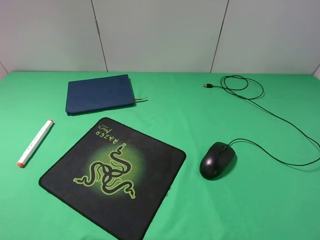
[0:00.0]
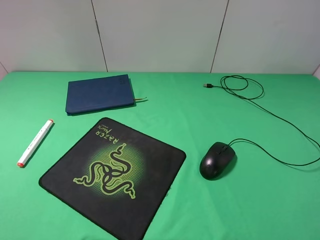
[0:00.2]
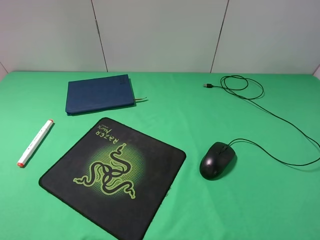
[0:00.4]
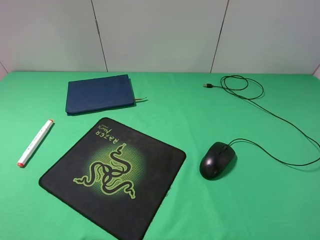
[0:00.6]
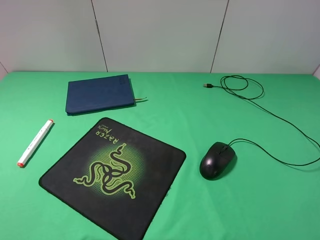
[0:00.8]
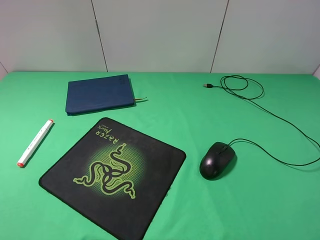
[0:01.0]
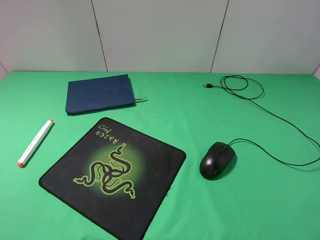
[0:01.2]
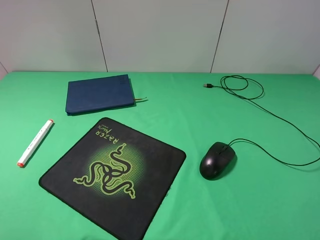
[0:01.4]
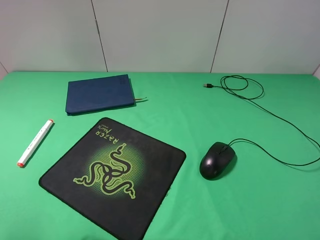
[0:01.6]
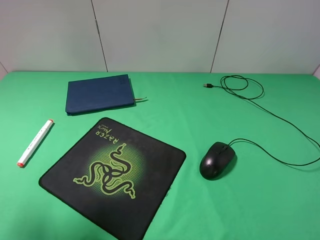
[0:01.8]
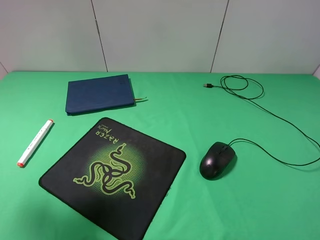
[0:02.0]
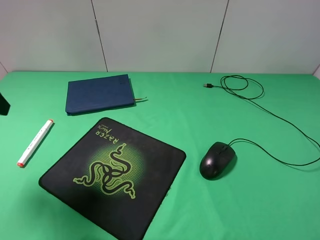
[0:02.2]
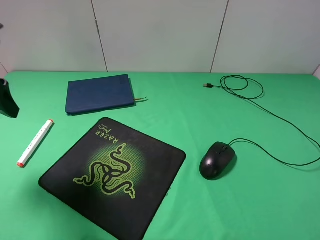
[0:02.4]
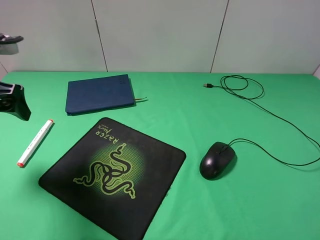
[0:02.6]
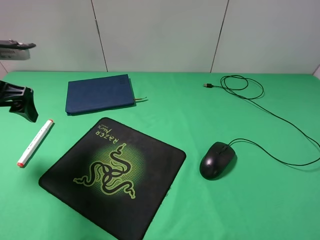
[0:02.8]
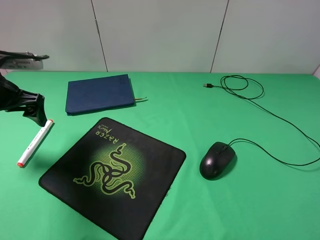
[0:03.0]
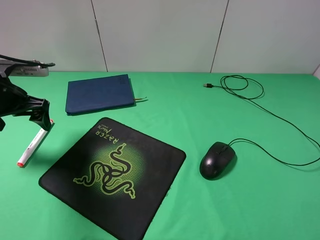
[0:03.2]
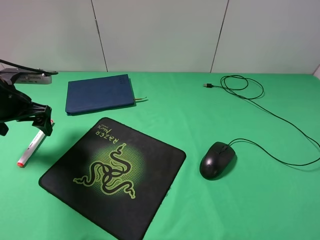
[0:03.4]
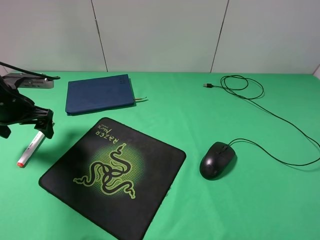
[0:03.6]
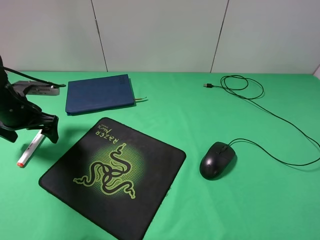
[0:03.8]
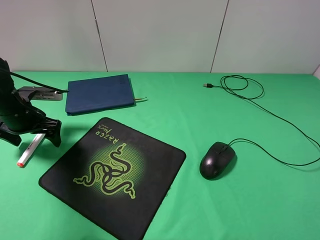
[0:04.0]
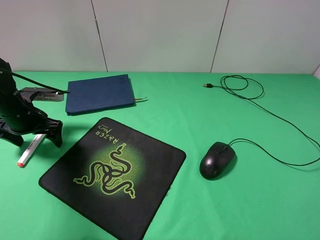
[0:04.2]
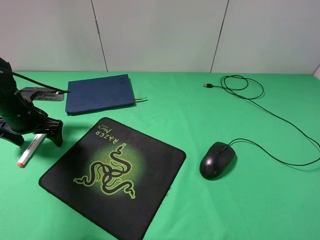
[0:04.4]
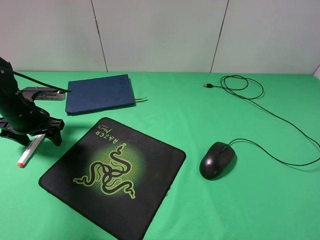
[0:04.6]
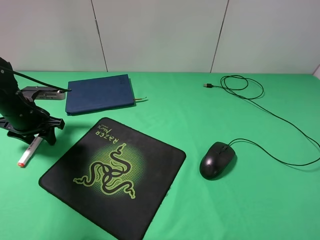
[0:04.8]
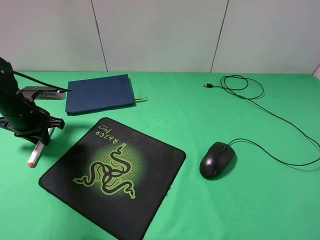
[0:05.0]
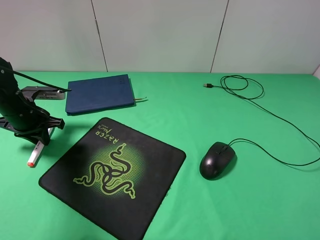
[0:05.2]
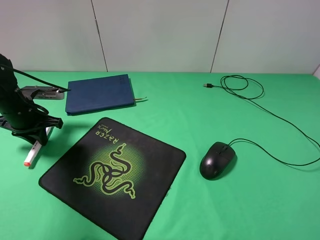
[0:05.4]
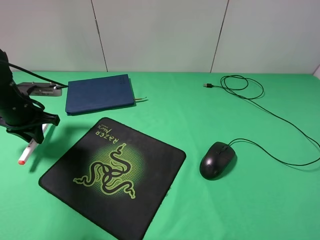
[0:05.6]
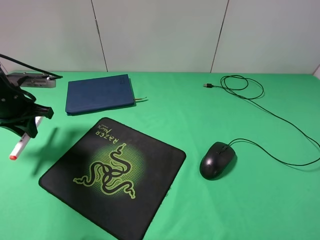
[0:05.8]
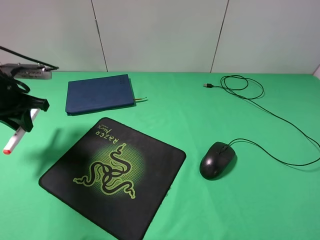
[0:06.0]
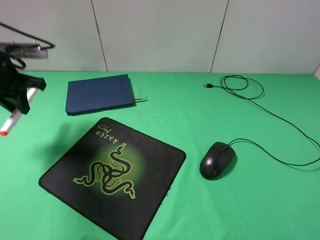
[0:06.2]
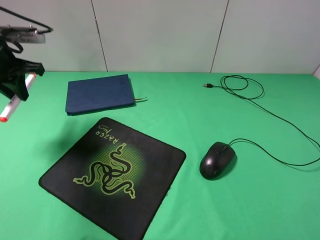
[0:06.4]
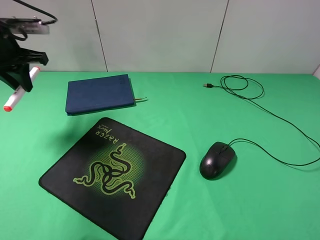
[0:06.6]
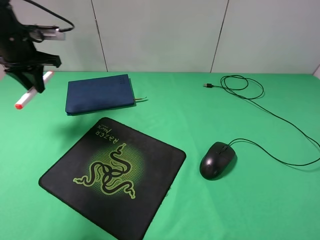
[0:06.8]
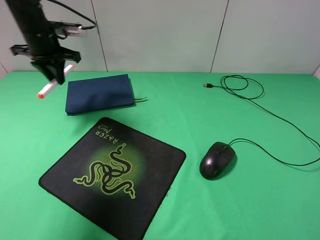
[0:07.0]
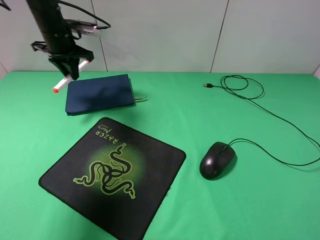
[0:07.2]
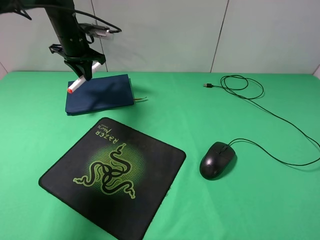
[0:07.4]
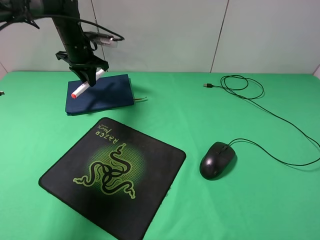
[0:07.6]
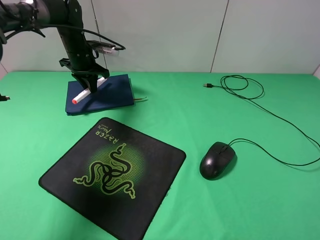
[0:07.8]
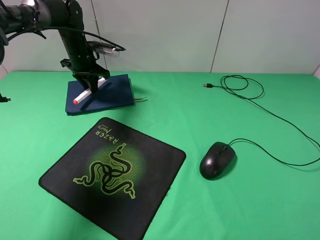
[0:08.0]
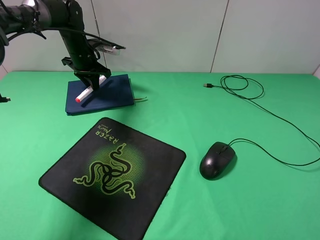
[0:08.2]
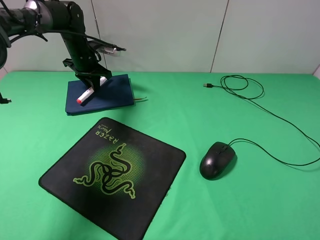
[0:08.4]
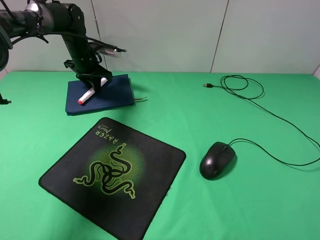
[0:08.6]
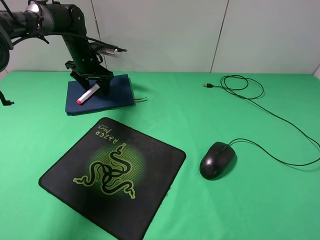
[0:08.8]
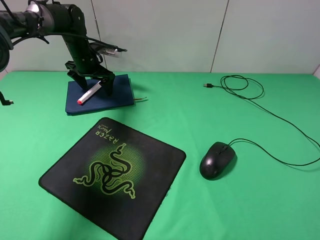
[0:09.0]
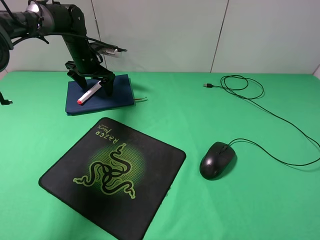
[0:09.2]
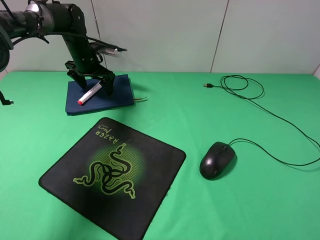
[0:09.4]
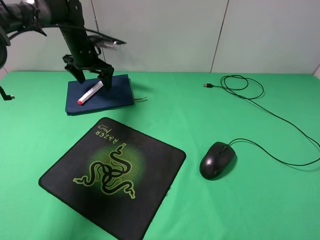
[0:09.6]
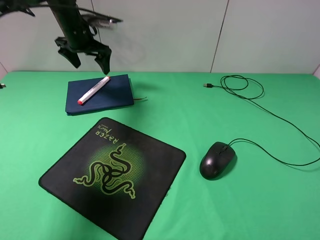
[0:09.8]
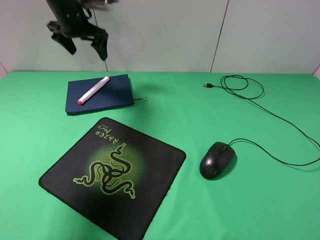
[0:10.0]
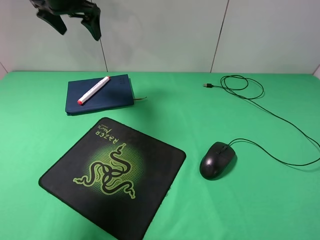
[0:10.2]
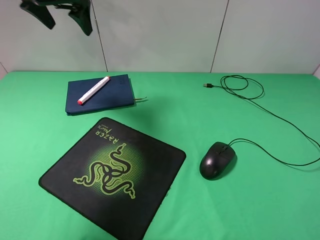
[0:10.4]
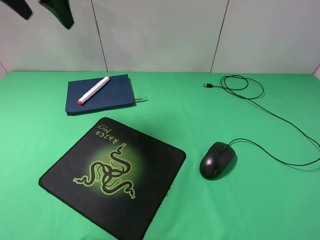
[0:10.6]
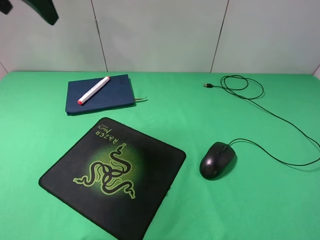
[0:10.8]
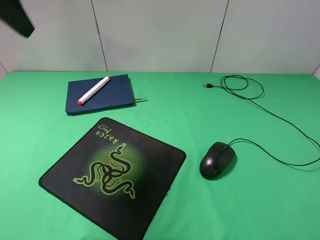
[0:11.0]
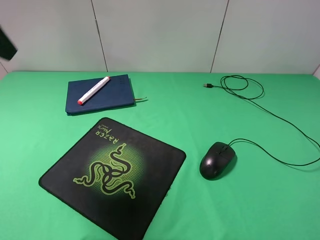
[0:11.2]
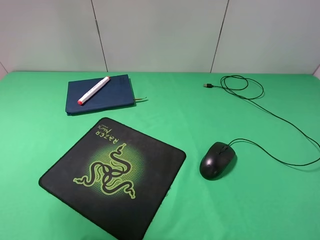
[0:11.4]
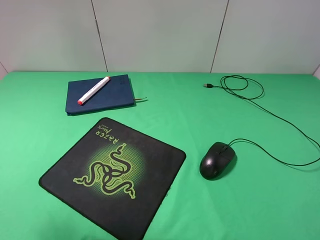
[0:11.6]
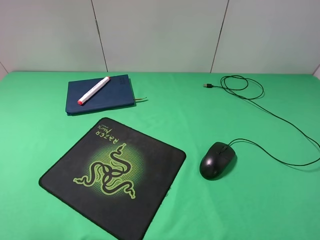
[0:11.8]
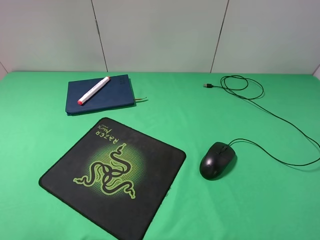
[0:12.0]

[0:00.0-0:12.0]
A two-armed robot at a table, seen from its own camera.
Step, 0:00.0 to 0:05.2: Grasp the marker with the left gripper.
Step, 0:05.4 to 0:09.2: Place the marker on the notebook with the left gripper.
0:01.6 to 0:03.0: The left gripper heads forward and downward, covering roughly 25 cm.
0:03.0 to 0:04.4: The left gripper heads downward, covering approximately 10 cm.
0:04.4 to 0:06.0: The left gripper goes about 10 cm upward, and closes its fingers.
0:06.0 to 0:07.6: The left gripper shifts roughly 20 cm forward and to the right.
0:07.6 to 0:09.0: The left gripper opens its fingers.
0:09.0 to 0:10.4: The left gripper moves upward and backward, roughly 25 cm.
0:10.4 to 0:12.0: The left gripper heads backward, covering some 40 cm.

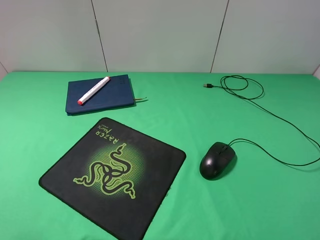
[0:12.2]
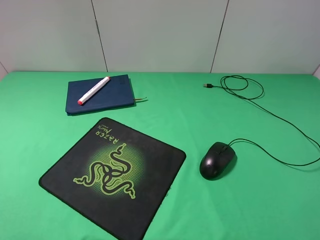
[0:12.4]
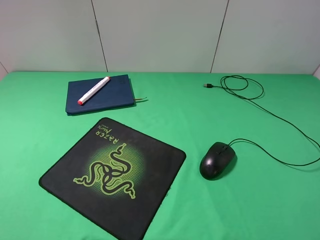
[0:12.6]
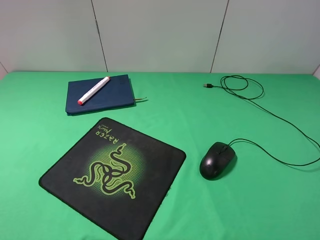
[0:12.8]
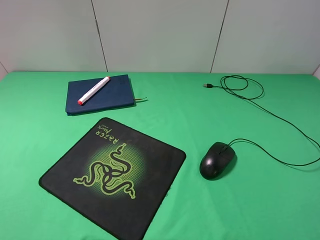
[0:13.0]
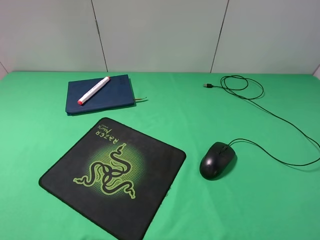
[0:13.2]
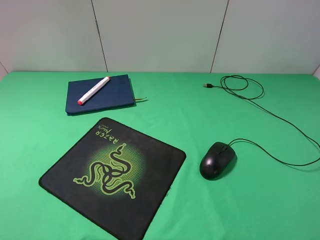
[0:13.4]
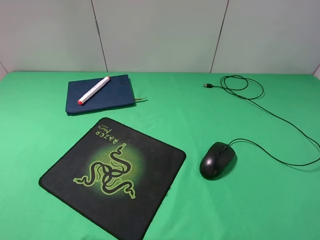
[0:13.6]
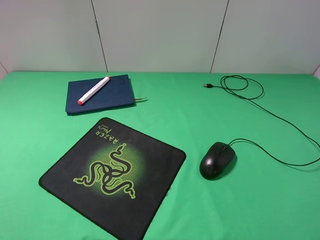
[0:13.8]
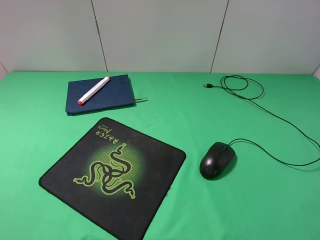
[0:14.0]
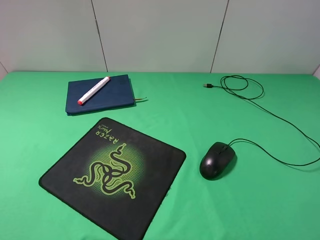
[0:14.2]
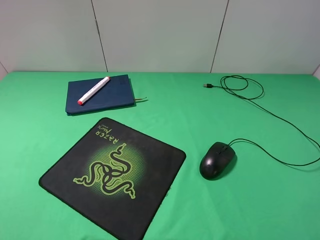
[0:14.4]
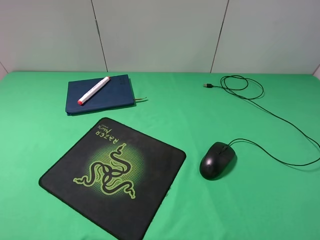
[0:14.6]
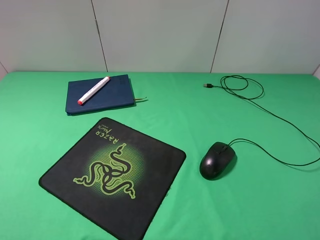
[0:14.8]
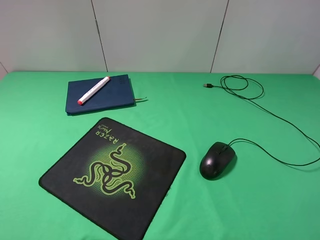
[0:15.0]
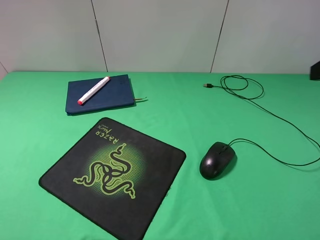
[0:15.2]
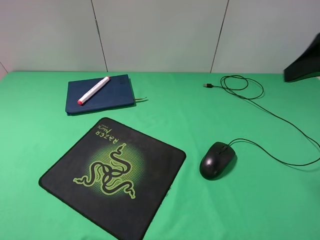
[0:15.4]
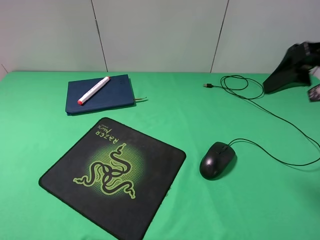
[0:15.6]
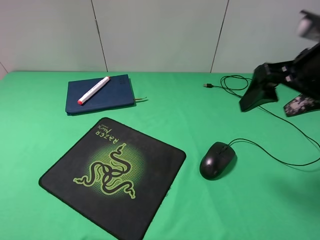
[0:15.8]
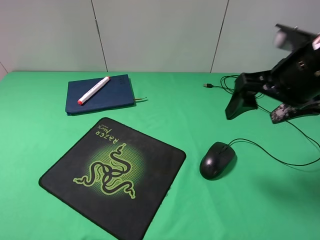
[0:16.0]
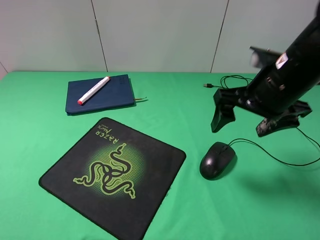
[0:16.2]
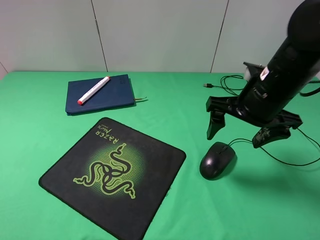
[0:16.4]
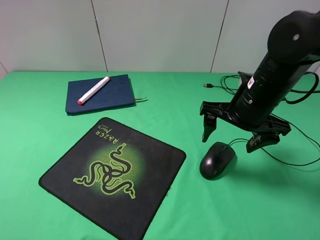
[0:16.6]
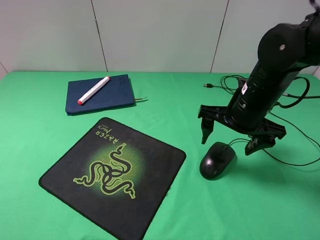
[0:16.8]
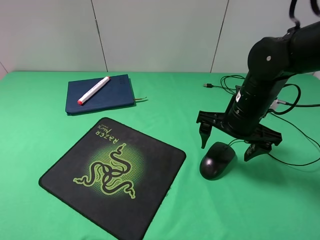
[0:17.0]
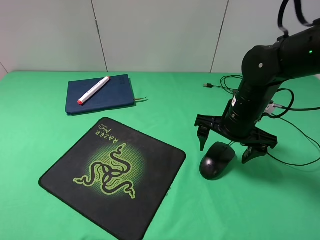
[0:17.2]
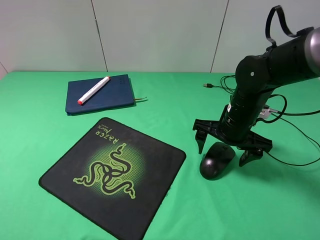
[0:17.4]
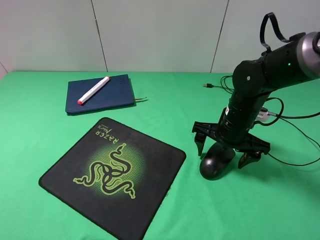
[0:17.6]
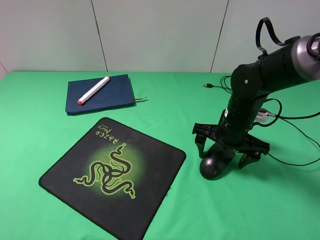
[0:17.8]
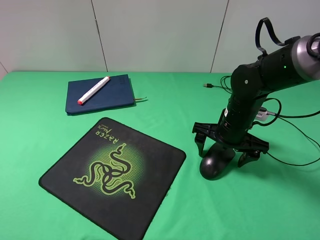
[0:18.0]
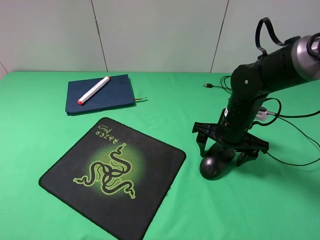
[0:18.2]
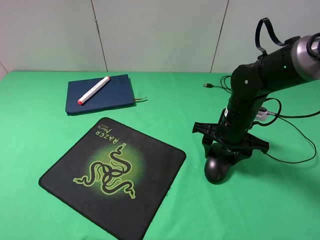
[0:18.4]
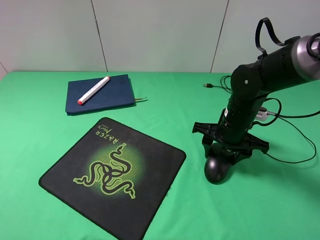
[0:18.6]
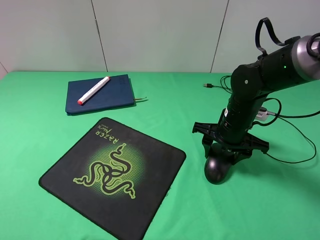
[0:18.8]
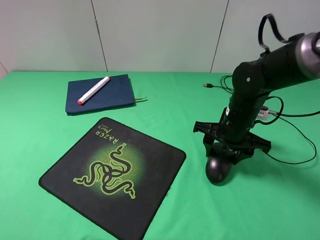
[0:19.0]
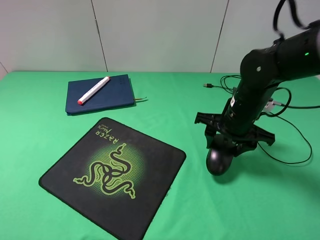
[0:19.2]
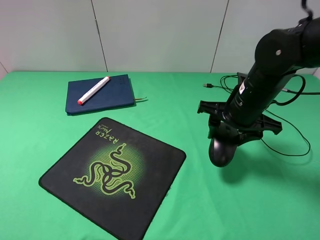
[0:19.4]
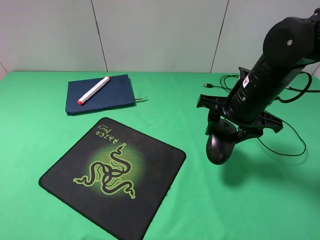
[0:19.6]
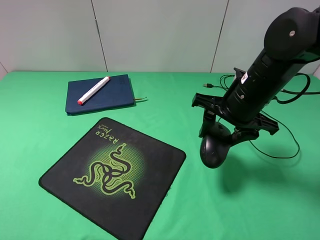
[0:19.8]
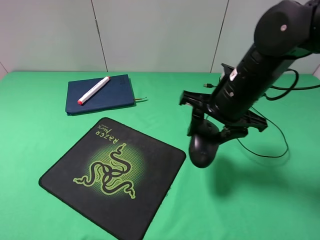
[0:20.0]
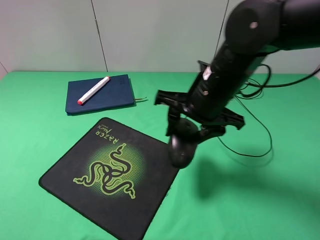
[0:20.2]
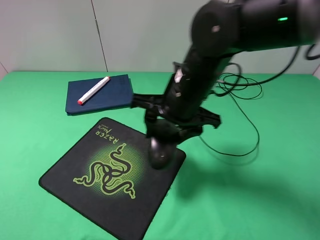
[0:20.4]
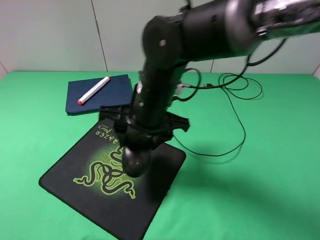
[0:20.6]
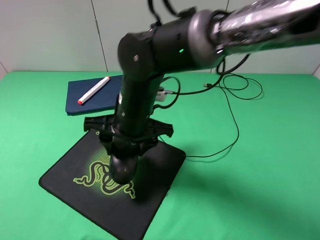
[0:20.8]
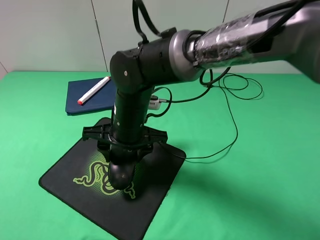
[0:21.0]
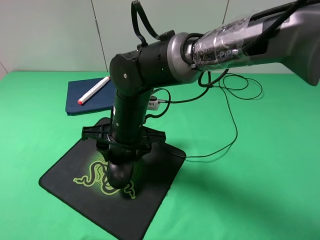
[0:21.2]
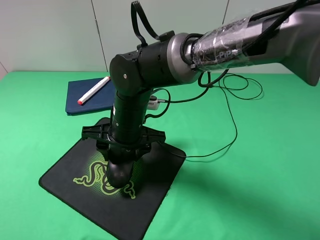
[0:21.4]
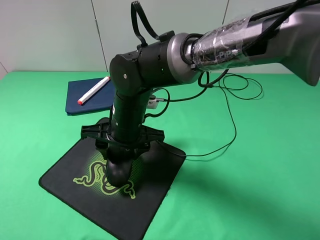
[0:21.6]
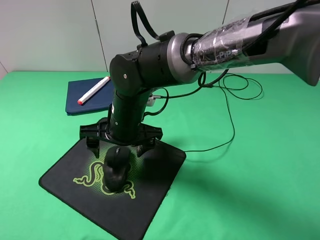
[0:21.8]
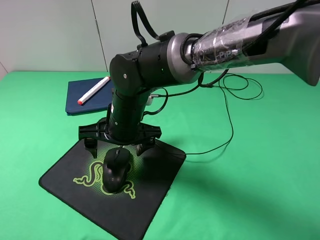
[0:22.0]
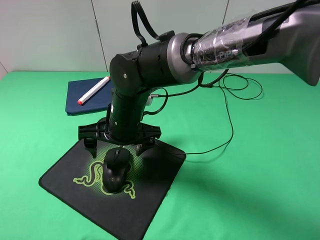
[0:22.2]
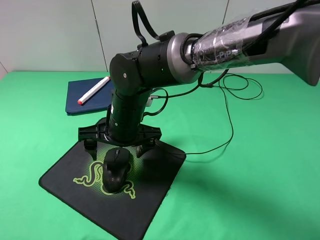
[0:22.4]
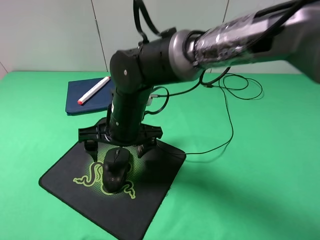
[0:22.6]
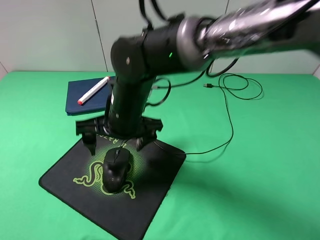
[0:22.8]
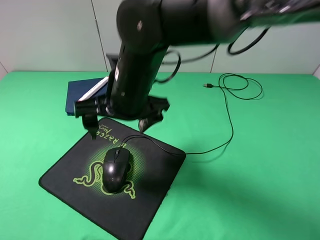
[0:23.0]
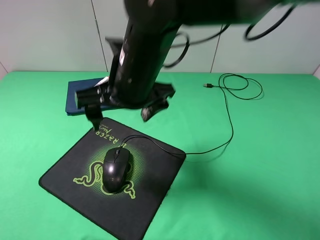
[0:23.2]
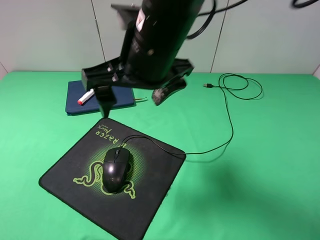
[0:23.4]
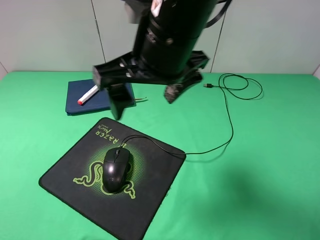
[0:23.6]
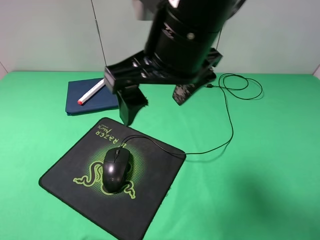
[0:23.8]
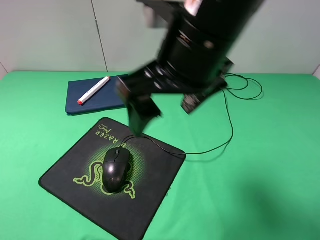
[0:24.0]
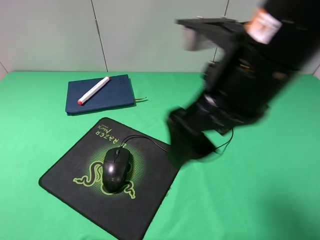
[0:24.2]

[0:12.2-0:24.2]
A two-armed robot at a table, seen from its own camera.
Step, 0:12.2 to 0:18.4: Grasp the mouse with the right gripper.
Step, 0:18.6 to 0:22.0: Place the mouse on the mouse pad with the right gripper.
0:15.2 to 0:16.6: The right gripper goes roughly 20 cm downward, to the left and forward.
0:16.6 to 0:18.2: The right gripper travels downward by approximately 10 cm, and closes its fingers.
0:18.2 to 0:19.8: The right gripper goes about 10 cm upward, and closes its fingers.
0:19.8 to 0:21.2: The right gripper heads to the left, covering roughly 20 cm.
0:21.2 to 0:22.6: The right gripper opens up.
0:22.6 to 0:24.2: The right gripper shifts roughly 25 cm upward, to the right and backward.
